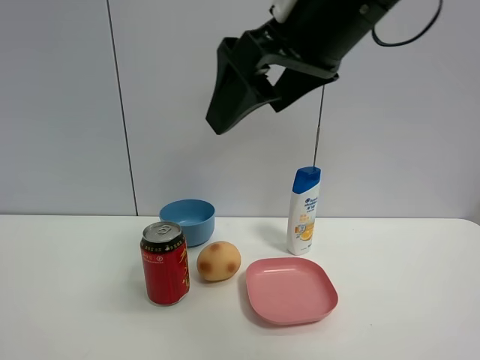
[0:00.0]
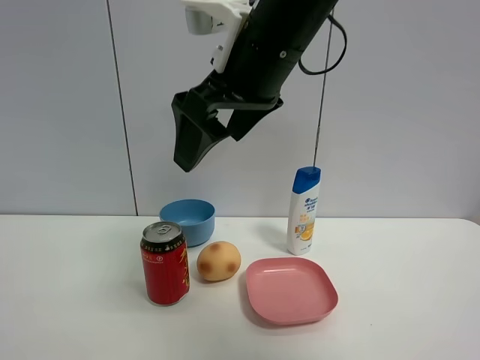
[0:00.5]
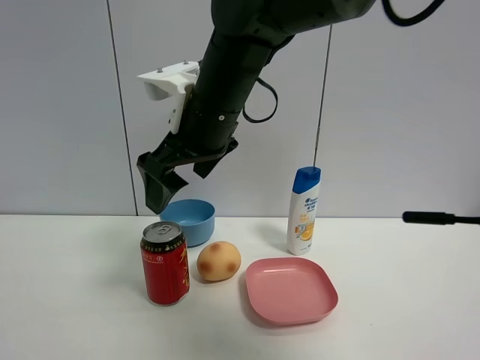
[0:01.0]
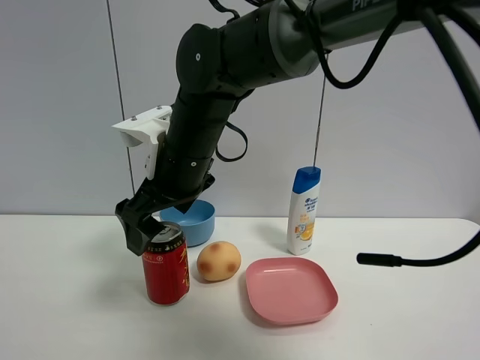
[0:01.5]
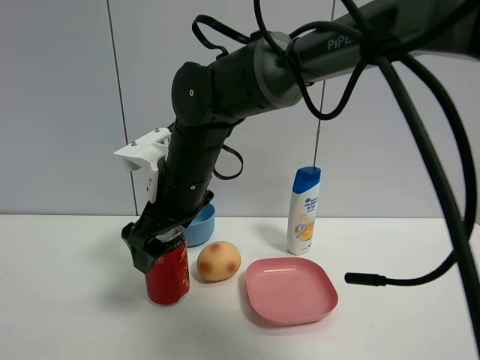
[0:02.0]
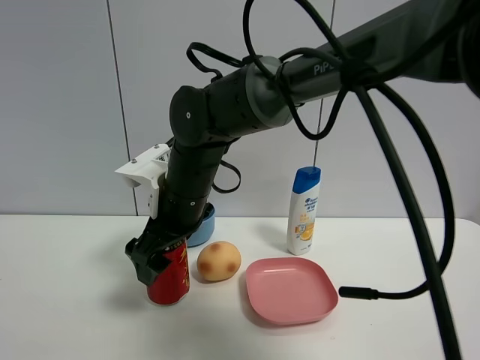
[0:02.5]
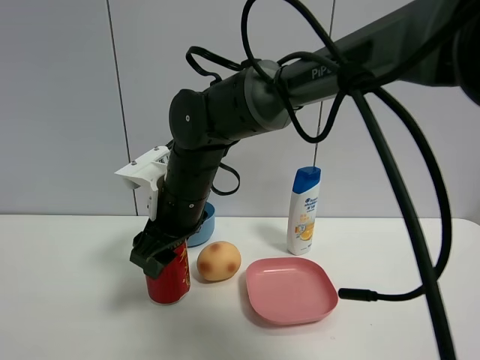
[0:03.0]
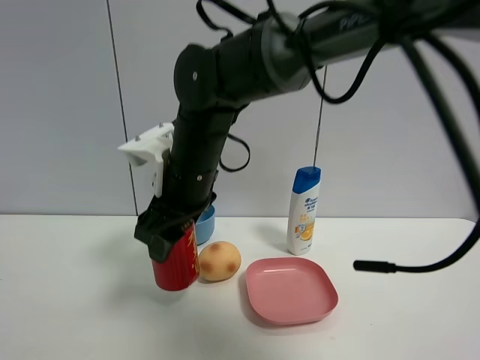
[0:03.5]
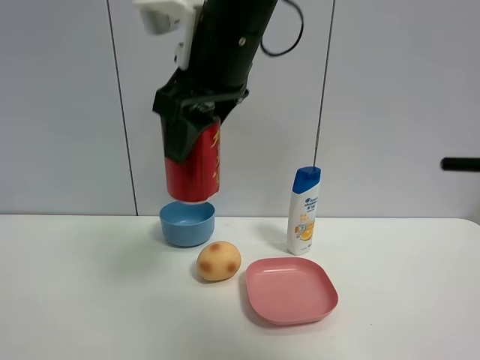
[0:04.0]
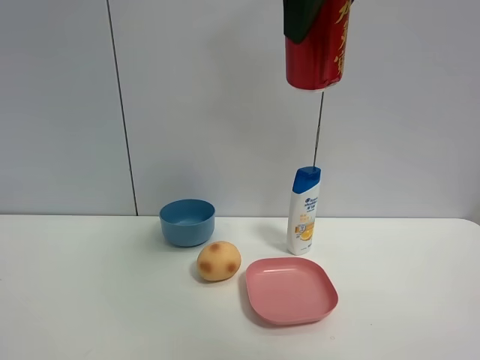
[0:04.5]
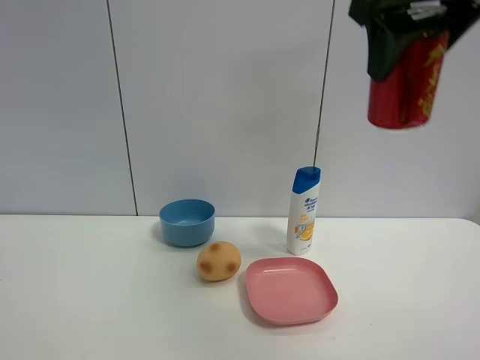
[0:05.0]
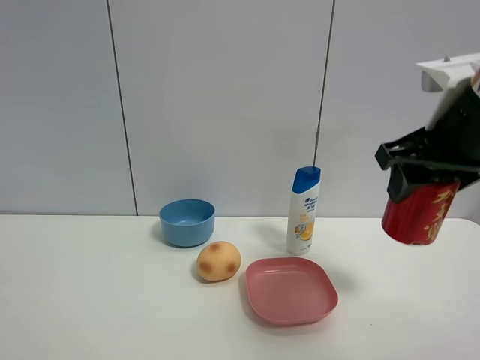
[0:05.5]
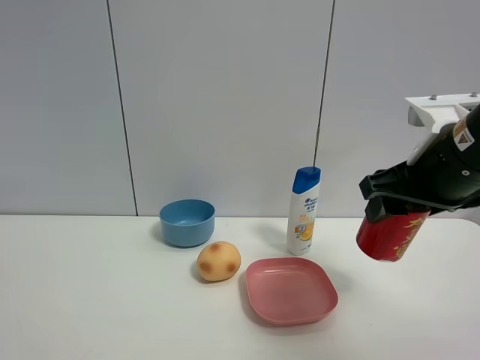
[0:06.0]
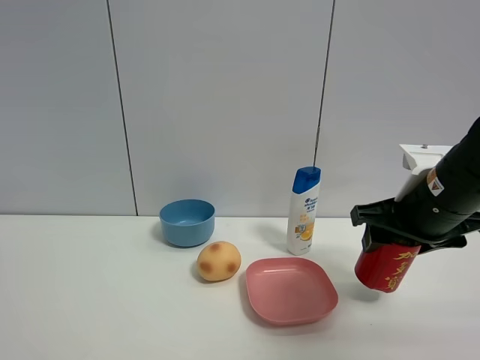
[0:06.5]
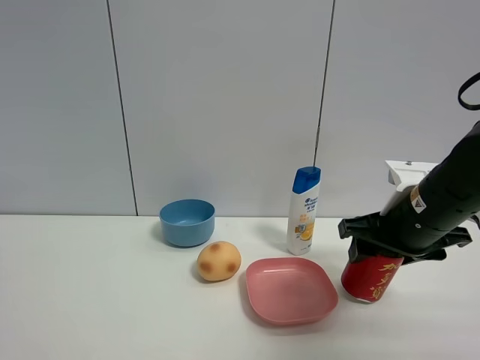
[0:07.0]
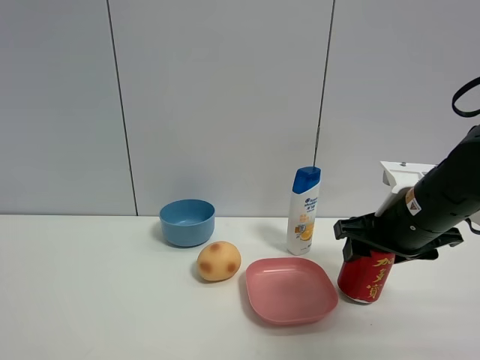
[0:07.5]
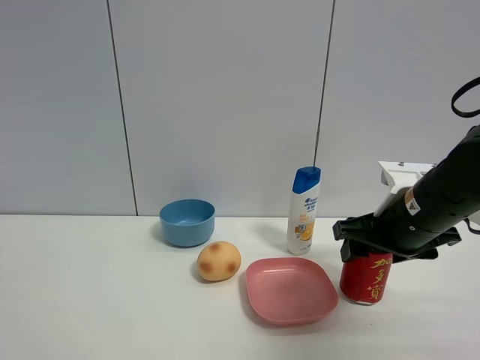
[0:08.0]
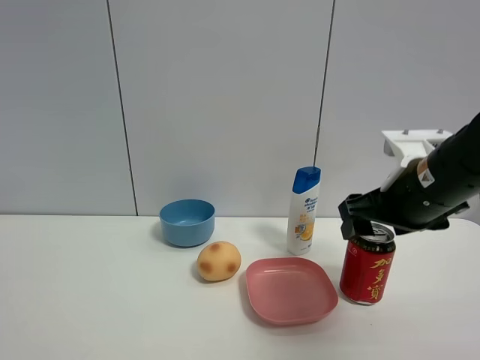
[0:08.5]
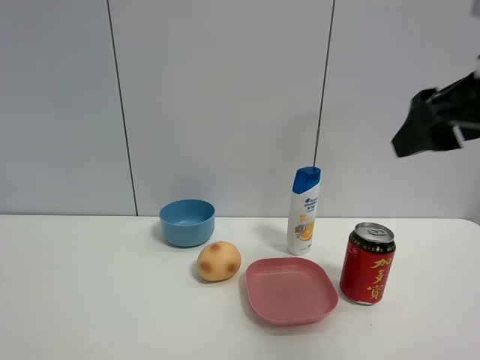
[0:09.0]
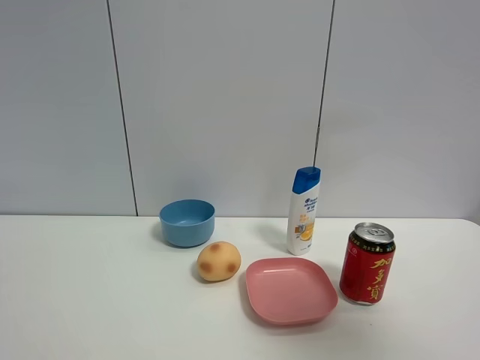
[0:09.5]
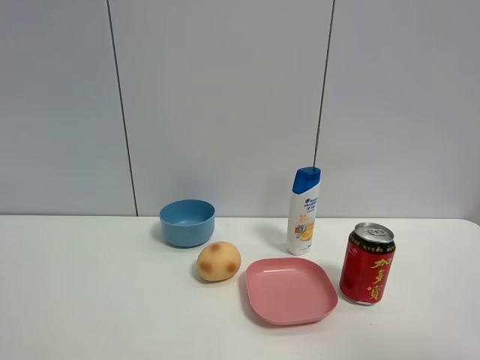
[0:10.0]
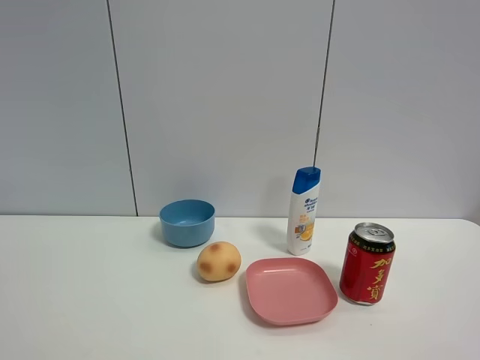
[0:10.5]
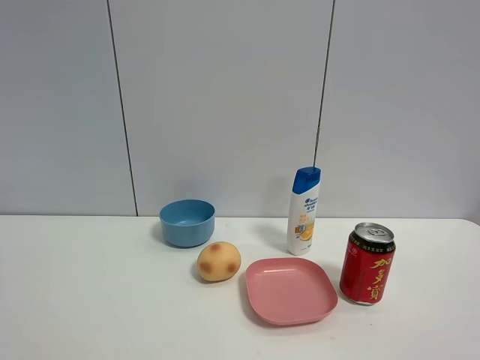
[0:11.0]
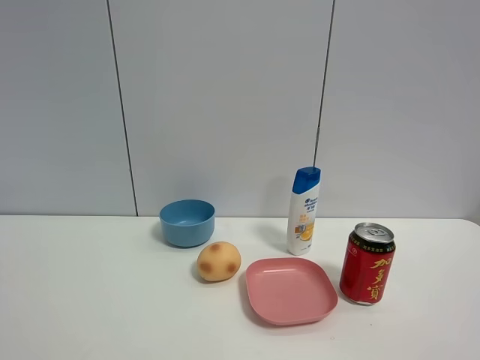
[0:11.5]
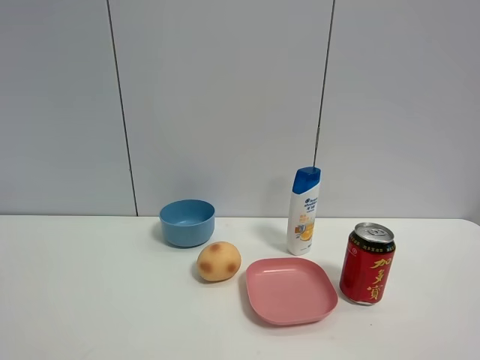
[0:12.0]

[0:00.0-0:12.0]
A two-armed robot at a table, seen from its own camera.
Task of the whole recording: the gripper move the object.
Step, 0:00.0 to 0:03.0: Grasp the Jia Duo Bao with the right gripper.
Step, 0:03.5 to 0:08.0: Place the Jia Duo Bao on the table with the right gripper.
0:00.0 to 0:02.0: The right gripper moves downward, to the left and forward, some 25 cm.
0:02.0 to 0:04.0: The right gripper shifts about 15 cm upward, and closes up.
0:04.0 to 0:06.0: The right gripper moves to the right and downward, roughly 25 cm.
0:06.0 to 0:08.0: The right gripper goes roughly 10 cm downward.
0:08.0 to 0:10.0: The right gripper travels backward and upward by approximately 35 cm.

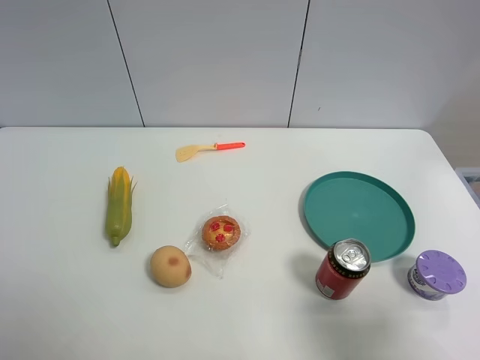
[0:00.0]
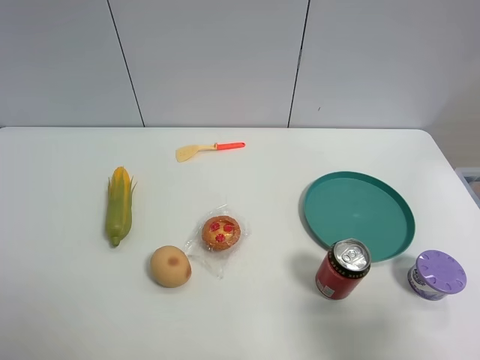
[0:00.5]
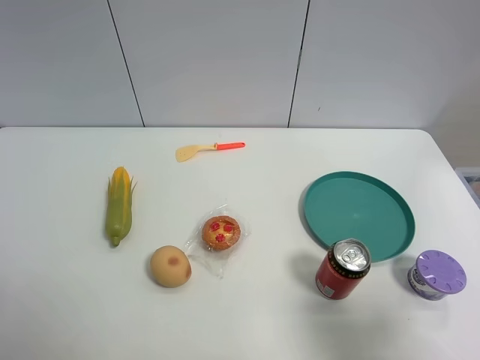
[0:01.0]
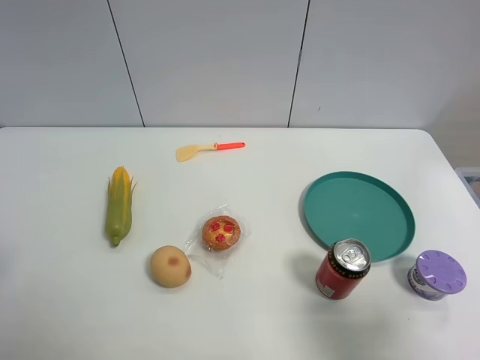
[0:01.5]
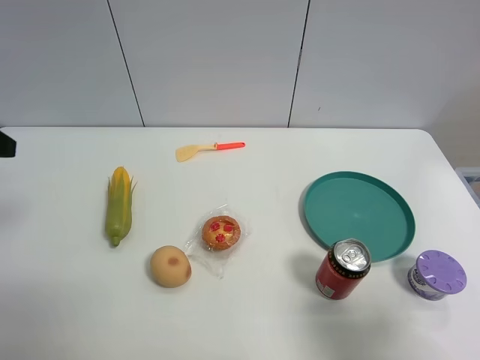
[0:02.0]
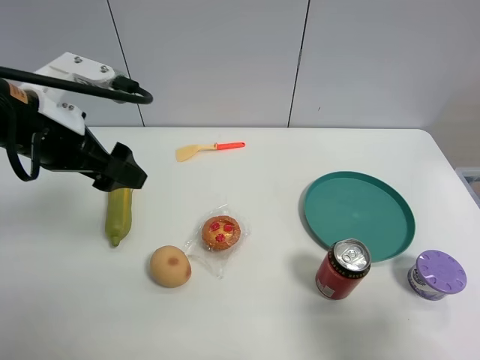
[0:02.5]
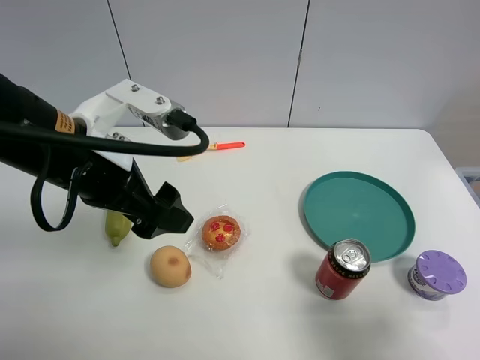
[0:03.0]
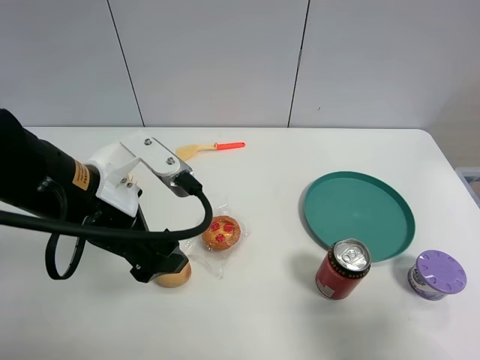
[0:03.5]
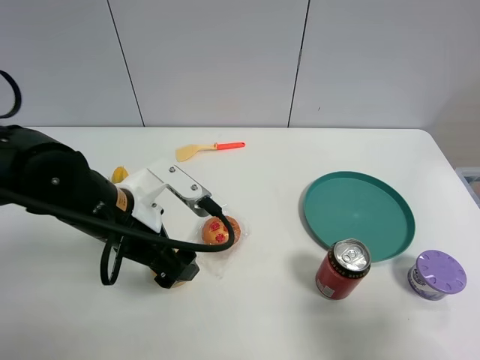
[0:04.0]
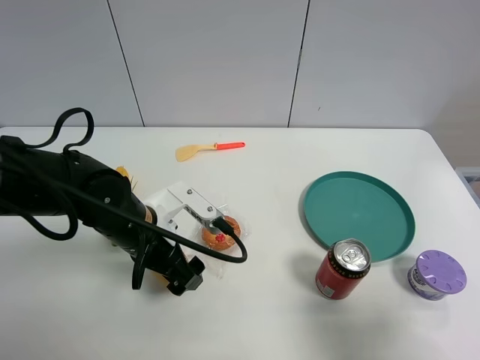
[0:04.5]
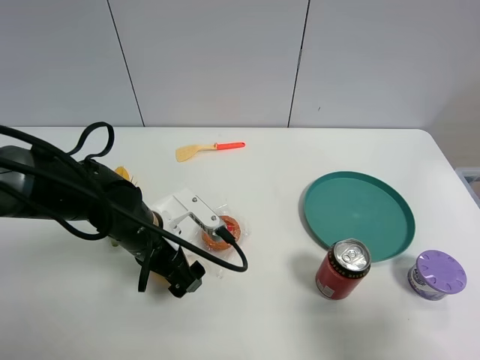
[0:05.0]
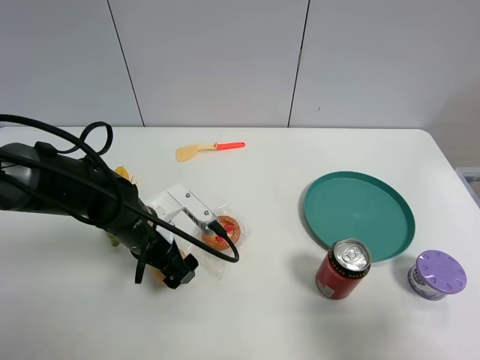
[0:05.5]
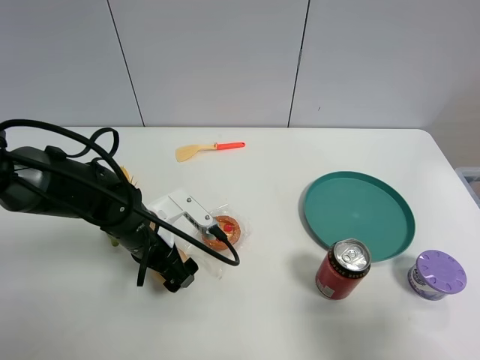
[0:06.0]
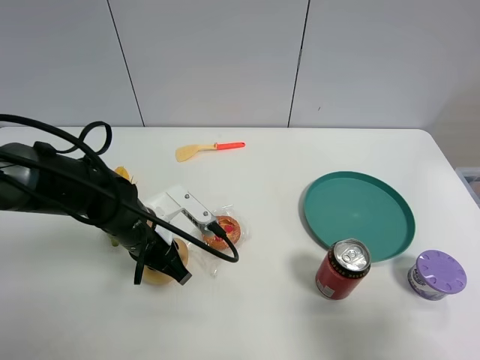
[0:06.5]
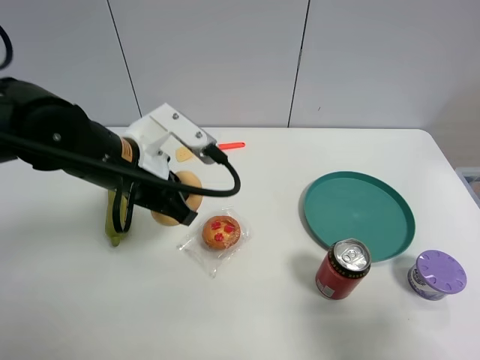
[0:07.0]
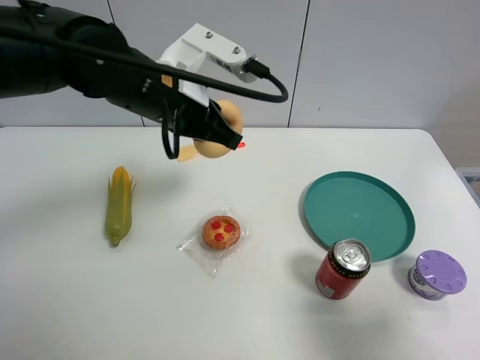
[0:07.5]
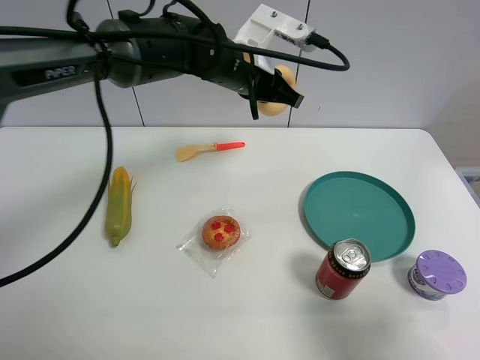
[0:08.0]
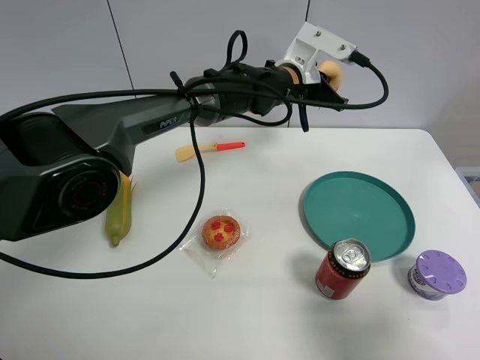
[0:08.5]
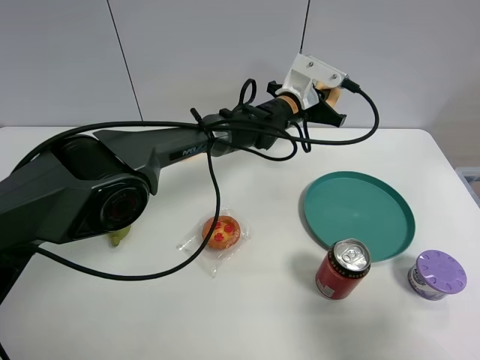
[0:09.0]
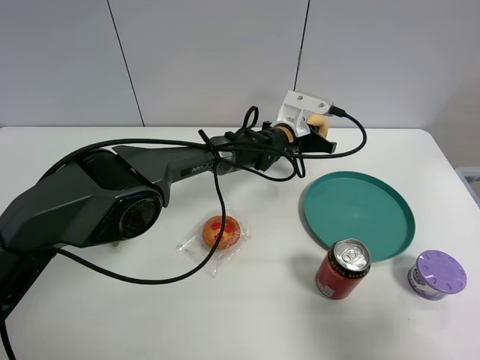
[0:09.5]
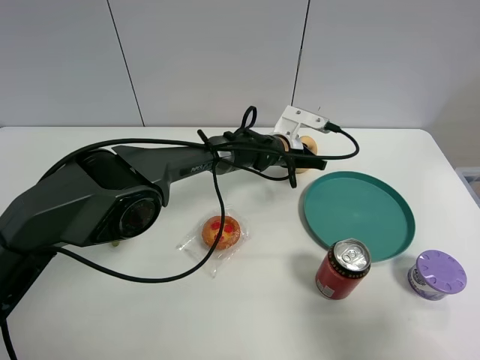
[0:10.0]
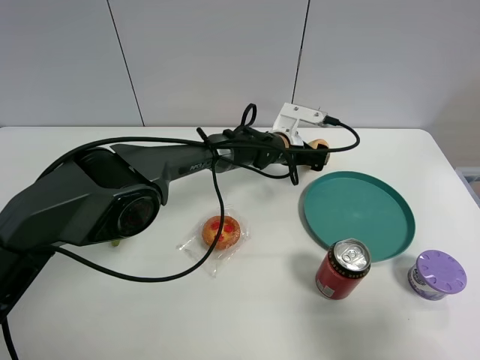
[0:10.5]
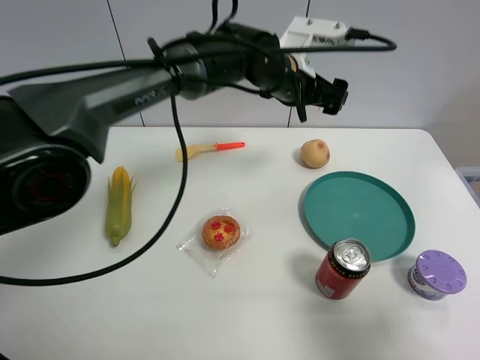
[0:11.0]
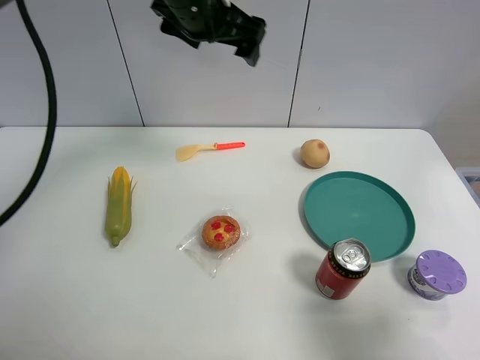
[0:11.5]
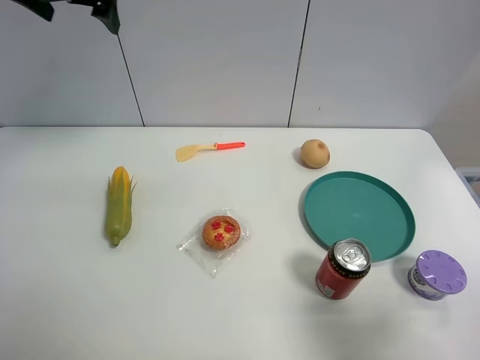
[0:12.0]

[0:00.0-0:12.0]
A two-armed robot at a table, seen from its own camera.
Task of the whole recording: the gripper move the object.
Step, 0:00.0 to 0:06.0: Grasp the egg yolk pastry with the left gripper.
Step, 0:06.5 to 0:10.0: Place the egg yolk pastry on the table with the left gripper.
0:02.0 to 0:04.0: The left gripper heads to the right and downward, covering some 25 cm.
0:04.0 to 0:06.0: The left gripper is displaced downward by about 10 cm.
0:06.0 to 0:08.0: The left gripper goes roughly 25 cm forward, upward and to the right, and closes up.
0:08.0 to 0:10.0: The left gripper moves downward, about 20 cm.
0:10.0 to 0:12.0: The left gripper heads upward and to the left, covering roughly 50 cm, and opens its fingers.

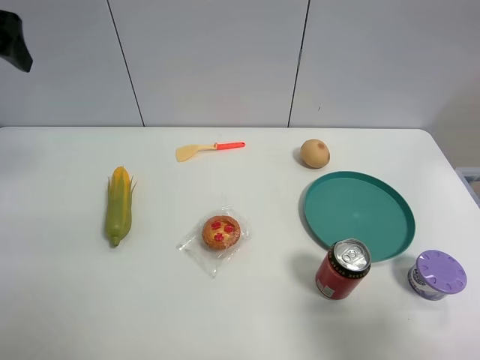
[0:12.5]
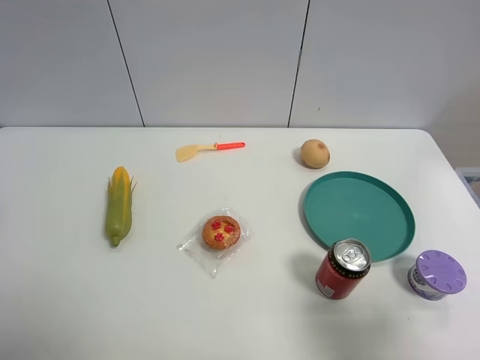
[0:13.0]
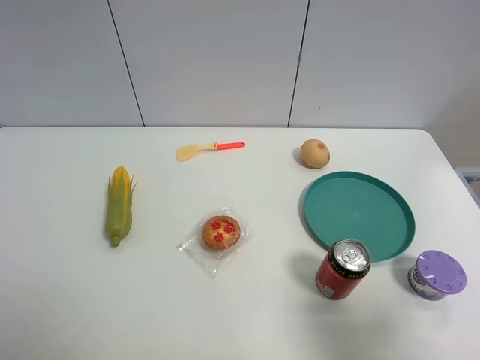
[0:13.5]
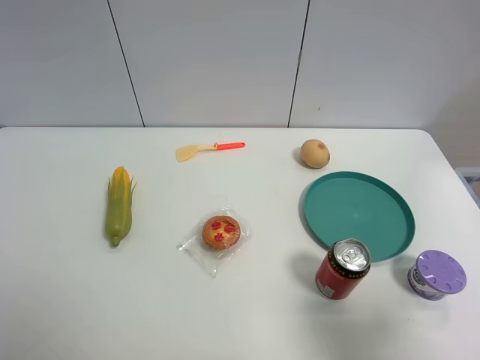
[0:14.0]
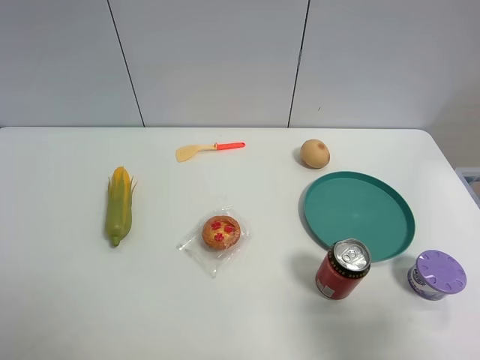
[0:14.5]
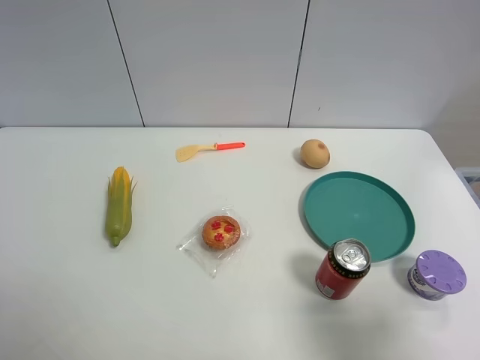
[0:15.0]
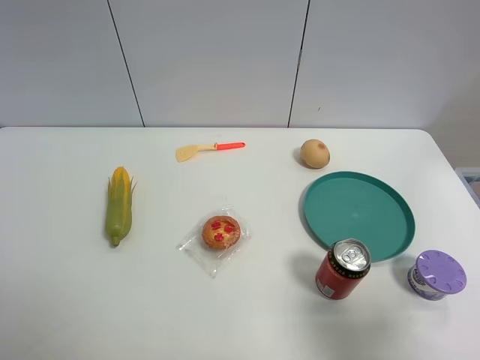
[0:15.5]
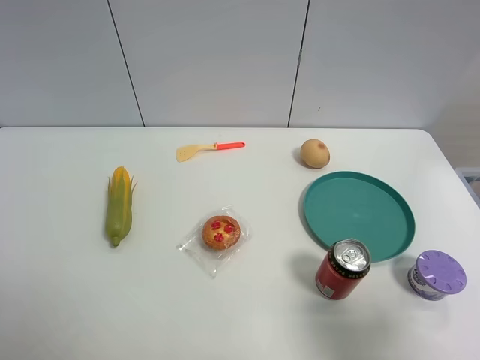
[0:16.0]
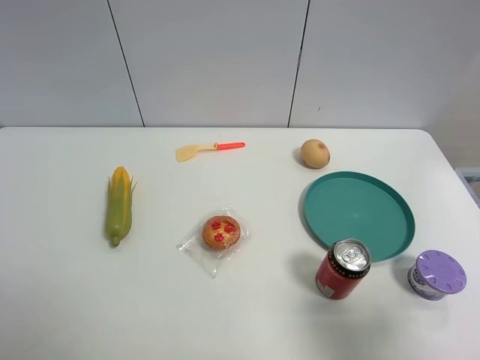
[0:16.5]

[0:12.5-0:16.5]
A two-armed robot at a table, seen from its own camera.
Task of the whole recording: the gripper move the object.
0:12.5 to 0:14.5: The left gripper is displaced backward by roughly 30 cm.
0:14.5 to 0:16.5: Neither gripper changes place.
